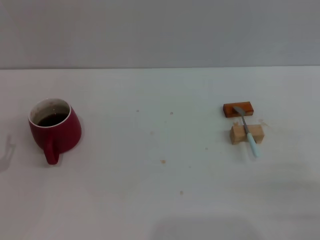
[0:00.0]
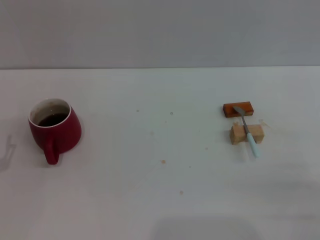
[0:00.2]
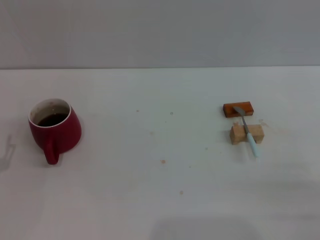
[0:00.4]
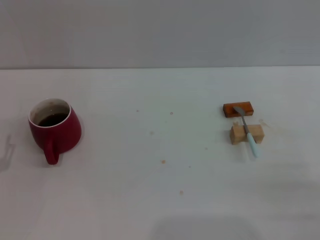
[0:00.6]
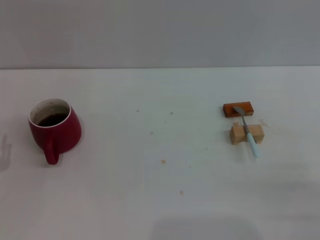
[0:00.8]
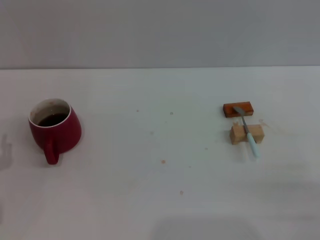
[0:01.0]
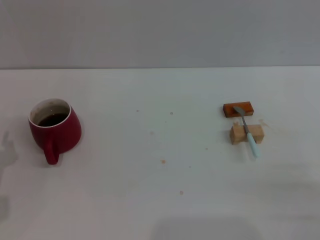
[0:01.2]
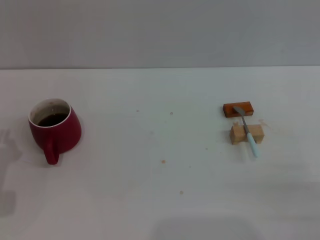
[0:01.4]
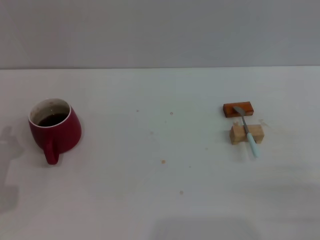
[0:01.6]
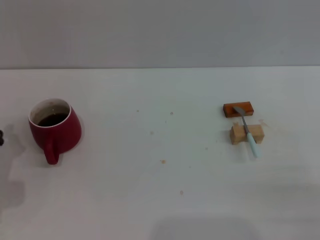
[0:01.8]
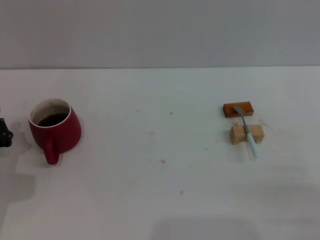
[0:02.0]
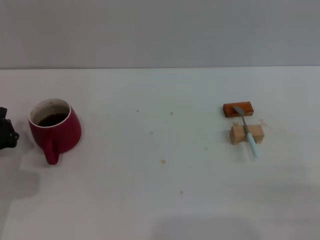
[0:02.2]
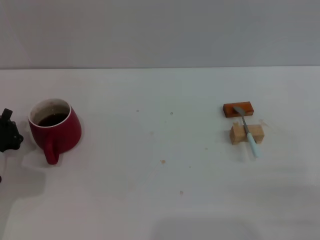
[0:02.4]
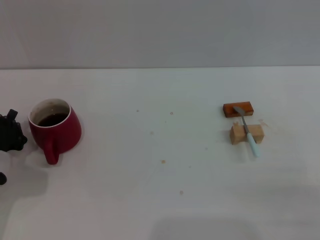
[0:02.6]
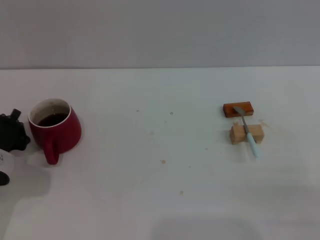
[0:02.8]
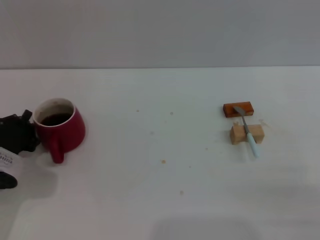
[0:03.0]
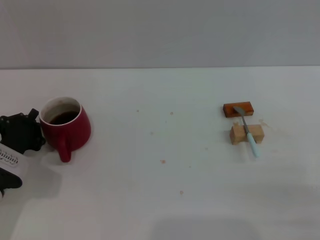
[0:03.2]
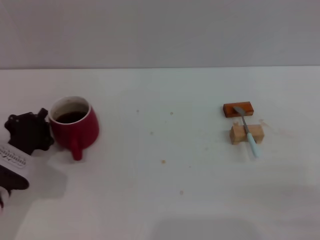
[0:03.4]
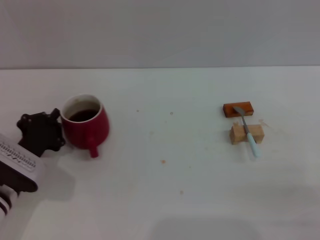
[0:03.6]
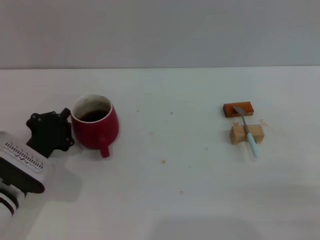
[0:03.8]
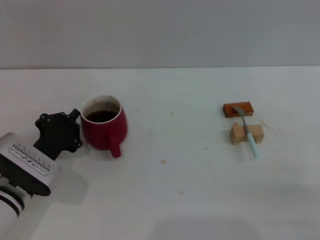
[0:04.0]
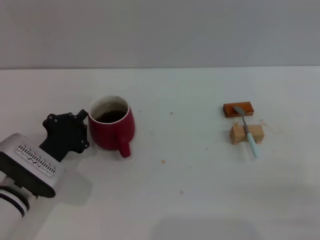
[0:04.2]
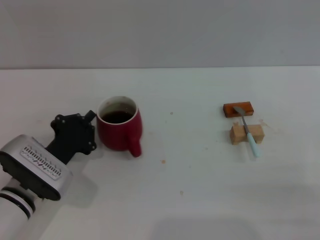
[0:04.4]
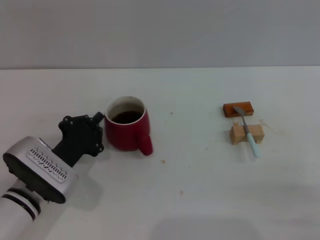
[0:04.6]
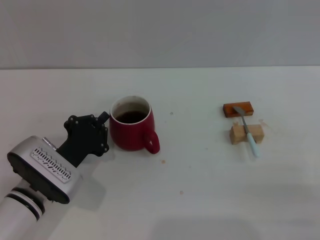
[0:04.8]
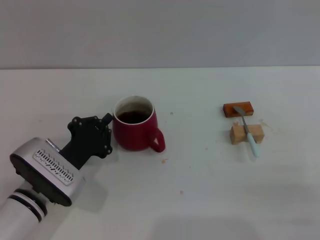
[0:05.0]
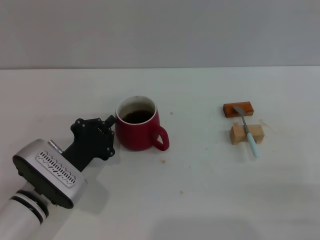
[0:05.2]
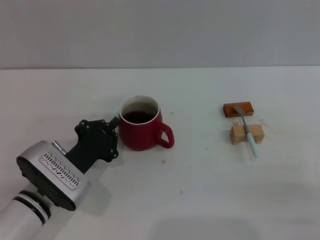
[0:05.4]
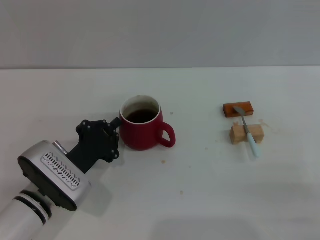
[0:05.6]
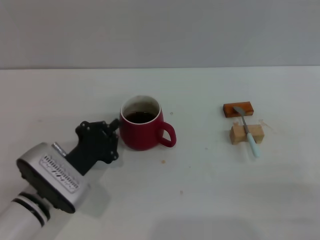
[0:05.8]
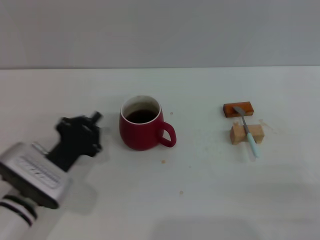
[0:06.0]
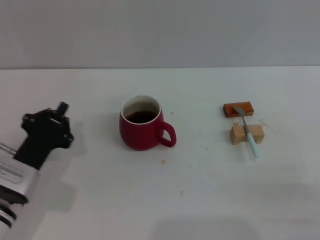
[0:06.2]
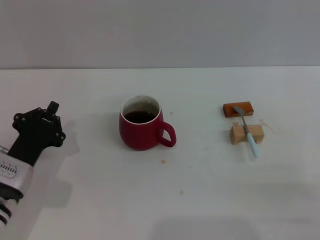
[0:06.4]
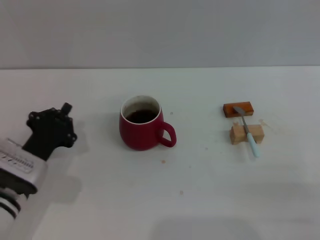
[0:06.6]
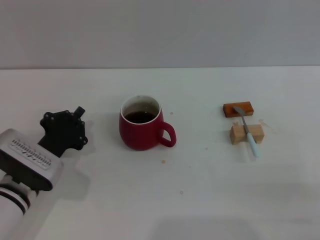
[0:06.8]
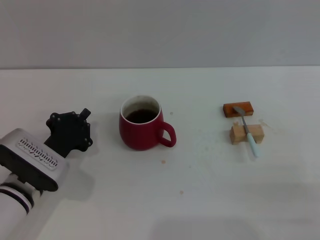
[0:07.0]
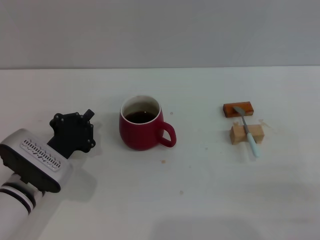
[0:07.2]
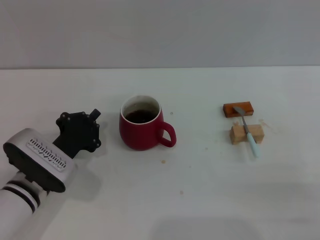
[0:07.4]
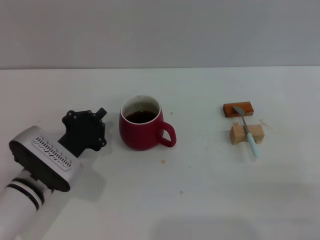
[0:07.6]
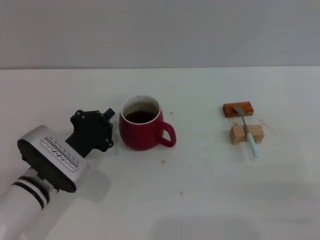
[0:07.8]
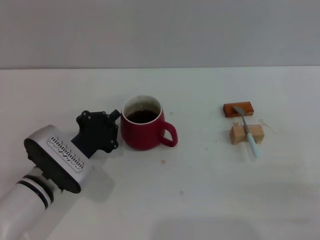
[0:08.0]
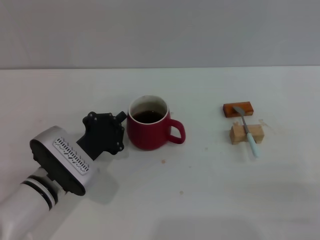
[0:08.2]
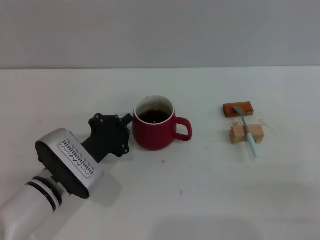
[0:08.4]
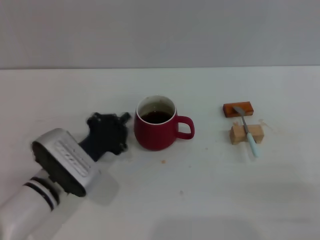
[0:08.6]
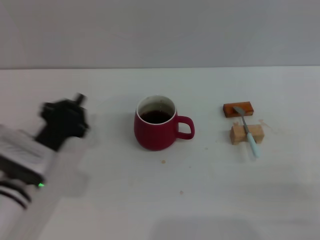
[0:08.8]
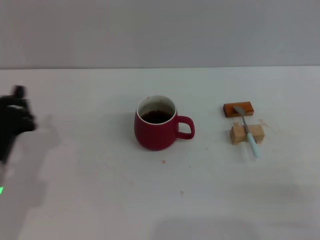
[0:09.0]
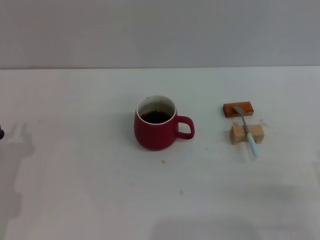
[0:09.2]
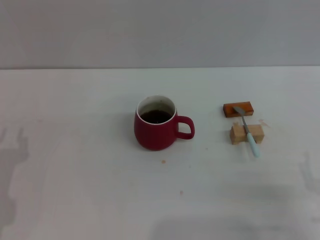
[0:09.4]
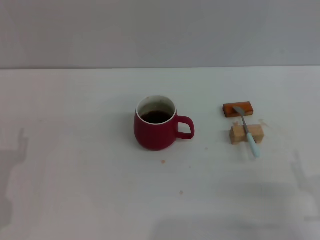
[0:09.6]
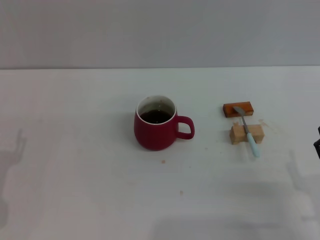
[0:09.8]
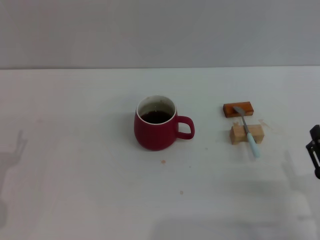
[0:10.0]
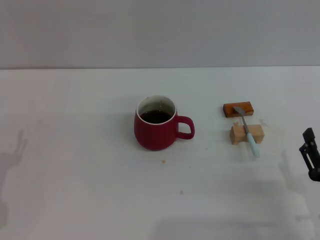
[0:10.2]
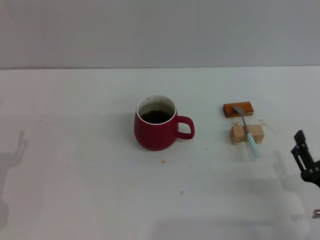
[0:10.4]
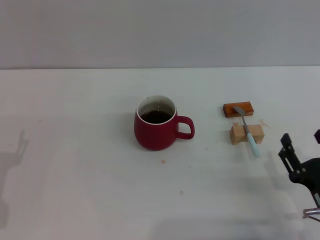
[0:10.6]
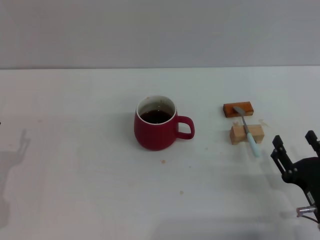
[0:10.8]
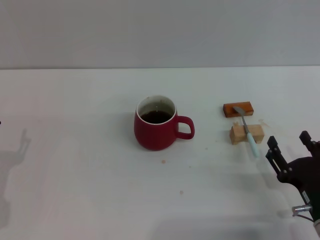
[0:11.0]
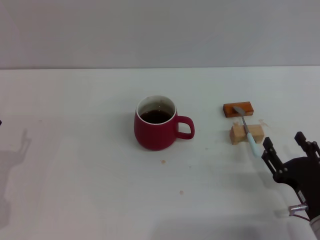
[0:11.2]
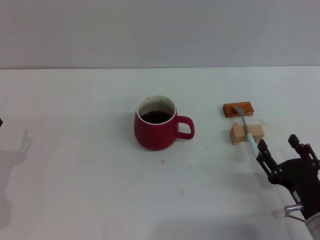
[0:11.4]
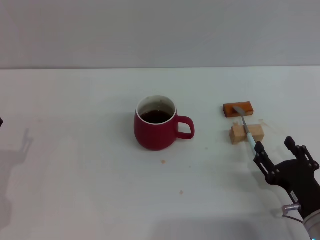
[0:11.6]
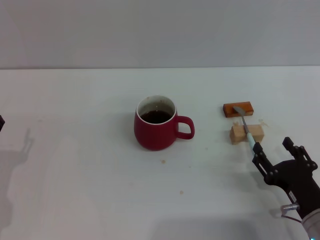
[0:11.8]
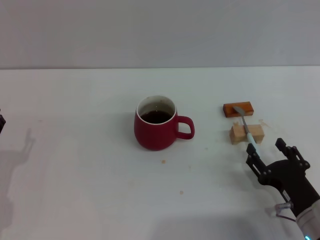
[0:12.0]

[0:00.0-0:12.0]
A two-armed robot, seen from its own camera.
Task of the whole recording: Move the red cup to the center, lift the blue spoon, stir it three times in the cup, and put the spoon into the cup.
Step, 0:00.0 to 0:08.6: Move the cup with coffee to the center of view with the left gripper.
0:03.0 to 0:04.4: The left gripper shifts about 5 cm to the right.
0:04.4 to 0:07.6: The grippers make only small movements.
0:07.6 to 0:09.0: The left gripper moves to the left, some 5 cm.
0:09.0 to 0:10.4: The left gripper shifts by roughly 5 cm, and opens up.
0:10.4 to 0:12.0: There are only small adjustments of the grippers.

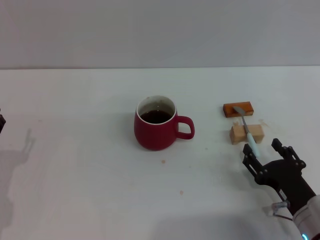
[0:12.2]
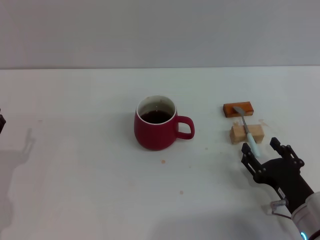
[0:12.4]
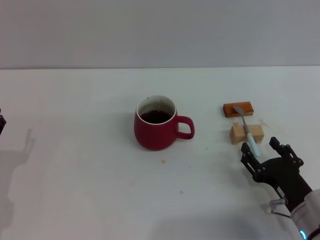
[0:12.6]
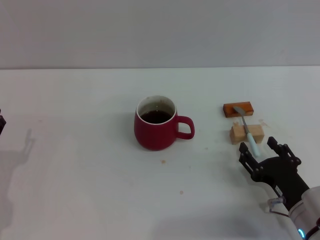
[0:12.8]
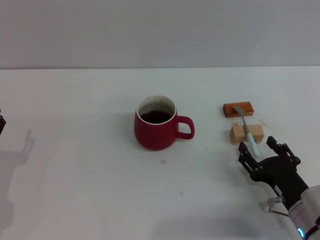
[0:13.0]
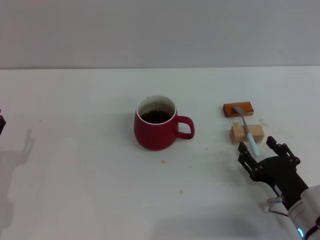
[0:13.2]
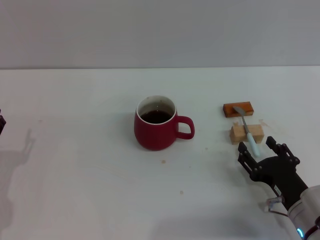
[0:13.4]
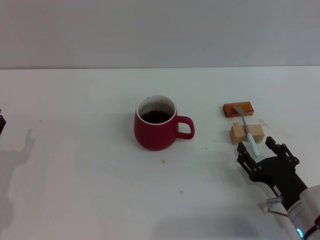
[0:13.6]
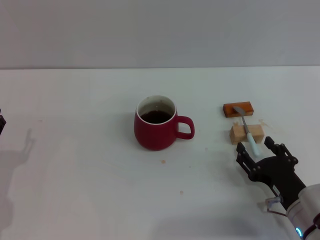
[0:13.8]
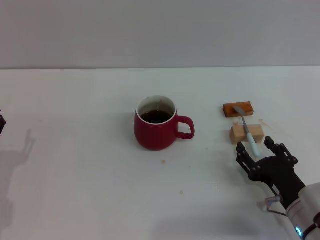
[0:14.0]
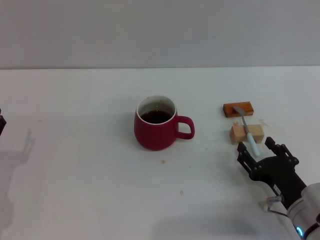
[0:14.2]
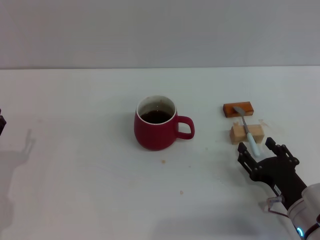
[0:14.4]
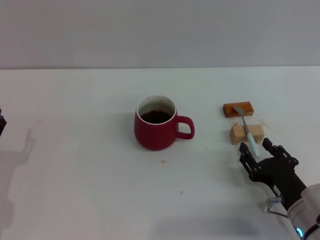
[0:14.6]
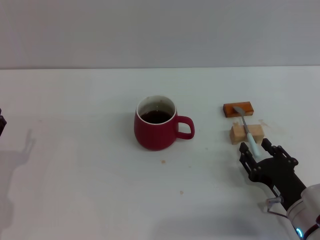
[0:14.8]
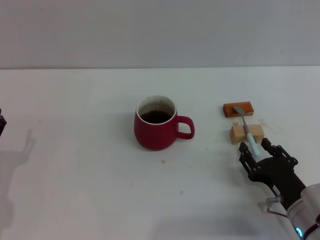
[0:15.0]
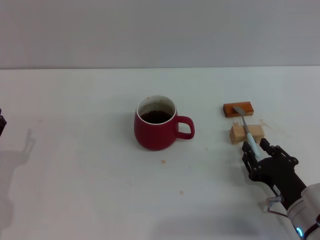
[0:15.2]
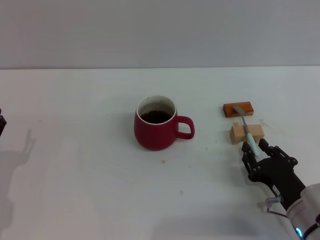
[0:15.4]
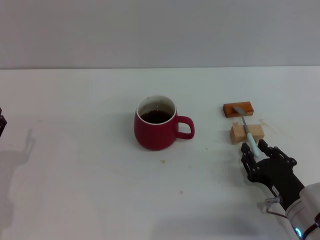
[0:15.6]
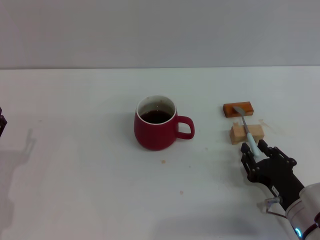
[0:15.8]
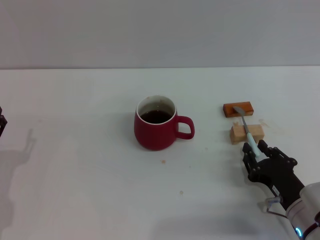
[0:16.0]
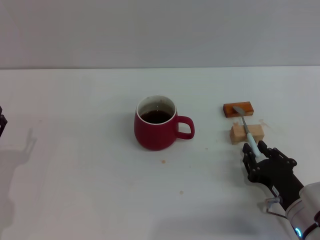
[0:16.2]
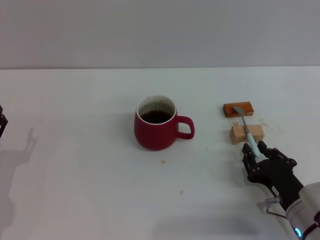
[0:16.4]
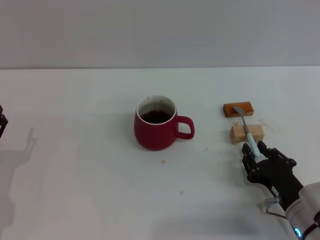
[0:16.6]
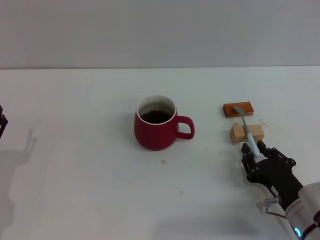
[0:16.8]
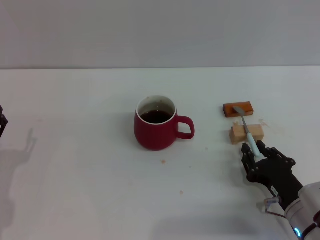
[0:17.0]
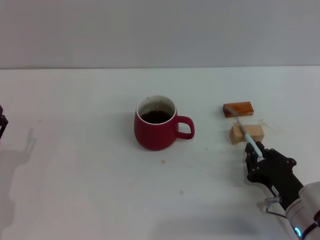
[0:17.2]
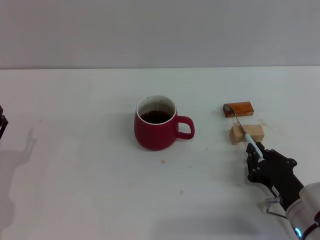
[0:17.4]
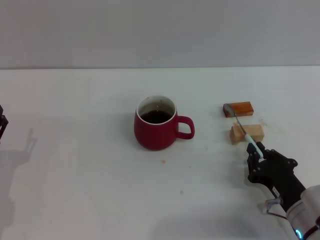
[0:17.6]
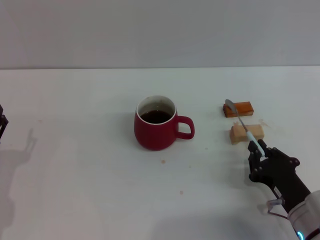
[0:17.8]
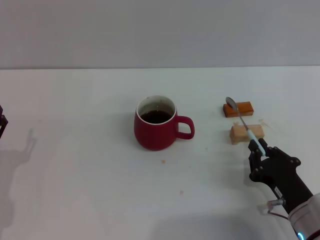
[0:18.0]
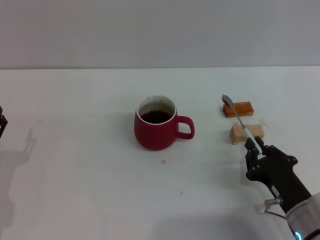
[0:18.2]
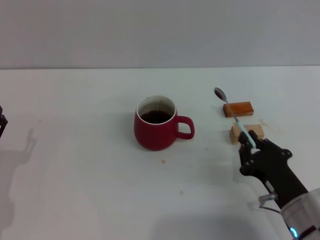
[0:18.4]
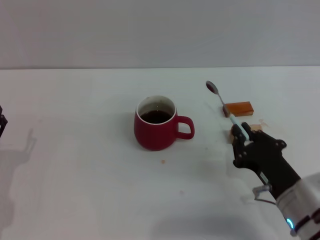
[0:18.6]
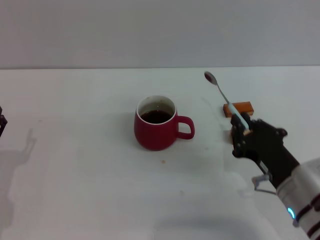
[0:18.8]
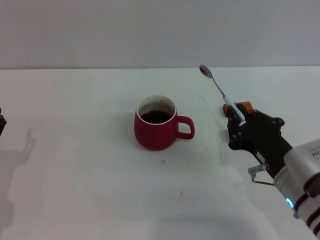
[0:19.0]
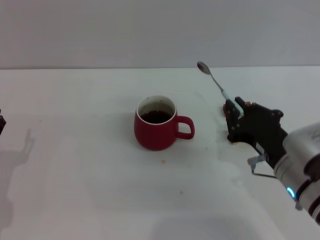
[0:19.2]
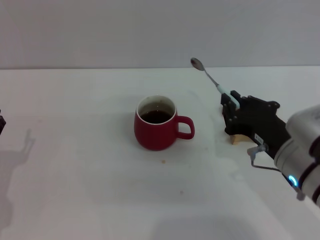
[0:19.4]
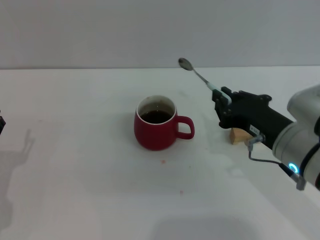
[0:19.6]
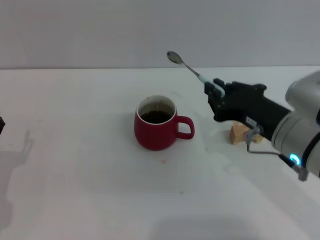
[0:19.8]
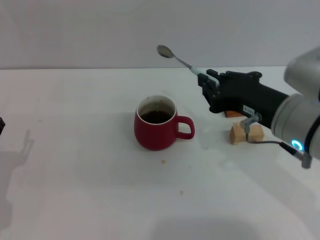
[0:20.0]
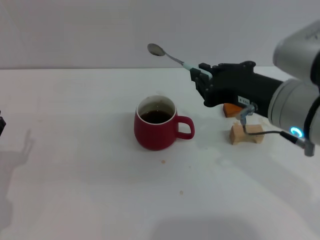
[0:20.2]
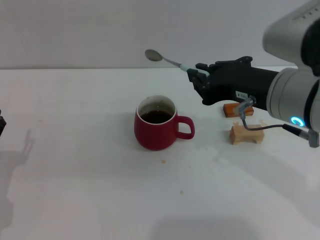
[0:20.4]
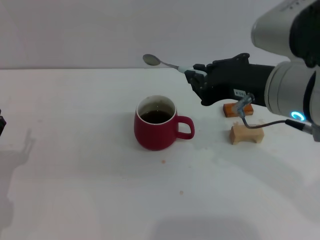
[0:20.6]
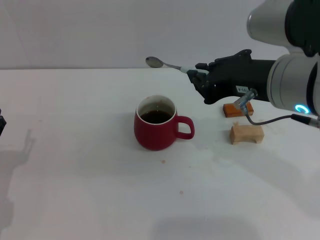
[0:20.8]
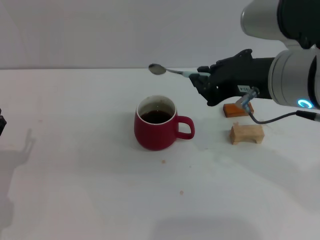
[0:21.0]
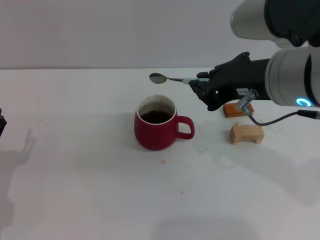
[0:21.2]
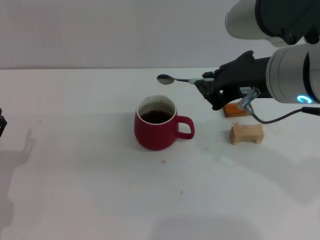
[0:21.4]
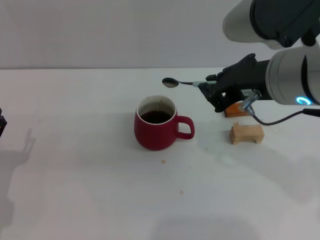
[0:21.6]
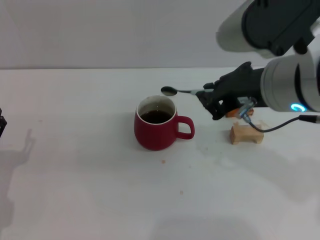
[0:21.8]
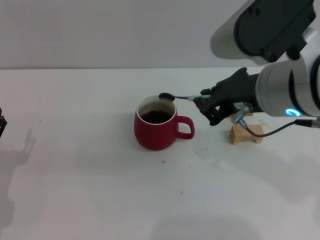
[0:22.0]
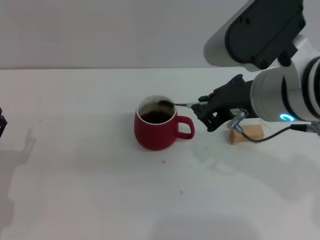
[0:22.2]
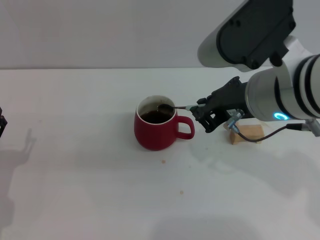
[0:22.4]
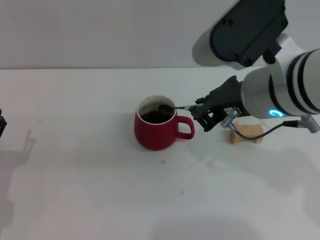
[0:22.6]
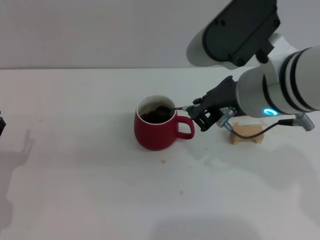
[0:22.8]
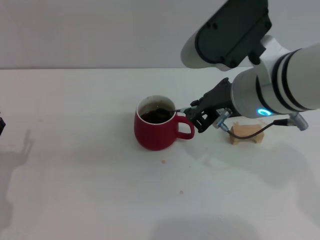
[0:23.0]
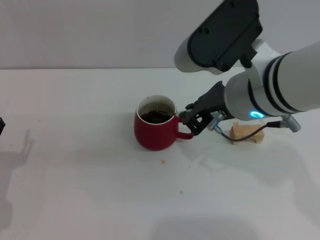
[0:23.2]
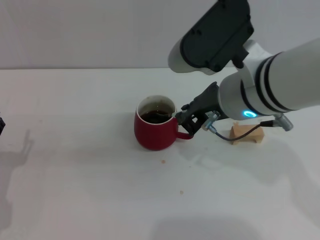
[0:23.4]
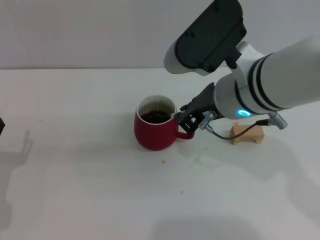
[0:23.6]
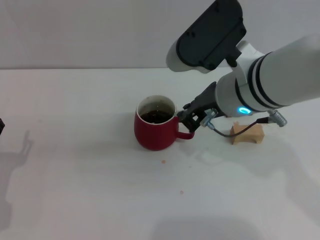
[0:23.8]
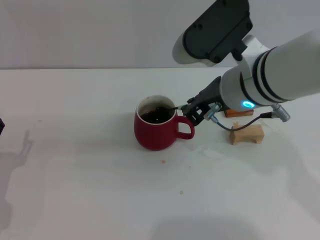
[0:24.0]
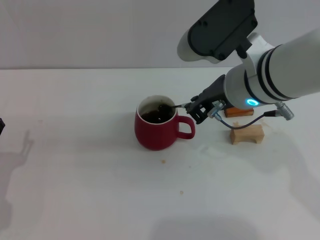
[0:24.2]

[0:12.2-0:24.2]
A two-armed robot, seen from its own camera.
Task of the whole recording: Move the red cup to the center, lift the blue spoon, stir it three times in the cup, and put the spoon into the cup.
Step, 0:12.2 to 0:19.0: Pick up the spoon with the right gripper.
0:12.2 to 0:16.6: Both grippers stay about where they are.
0:16.6 to 0:18.2: The right gripper closes its fingers.
0:18.2 to 0:19.8: The right gripper goes approximately 15 cm upward.
0:19.8 to 0:21.2: The right gripper heads upward, covering roughly 10 cm.
0:21.2 to 0:22.6: The grippers make only small movements.
0:22.6 to 0:24.2: There are only small adjustments of the grippers.
